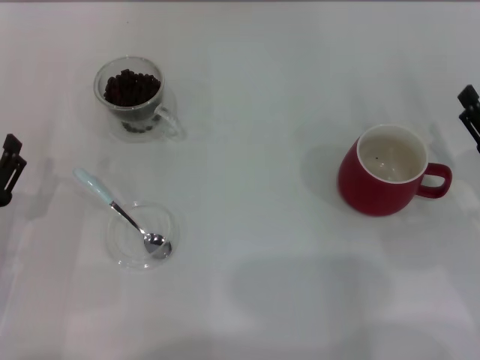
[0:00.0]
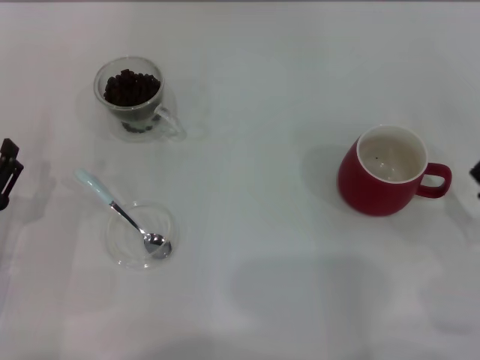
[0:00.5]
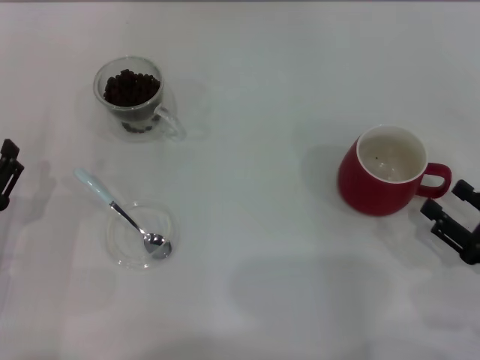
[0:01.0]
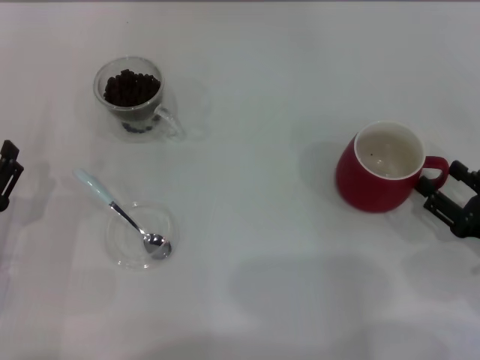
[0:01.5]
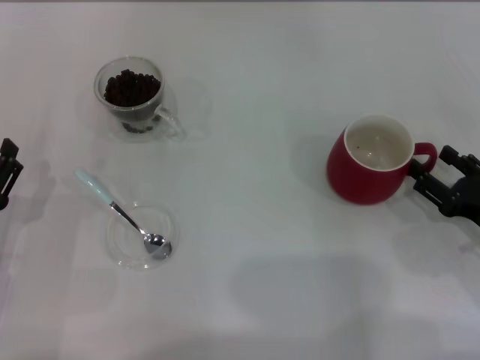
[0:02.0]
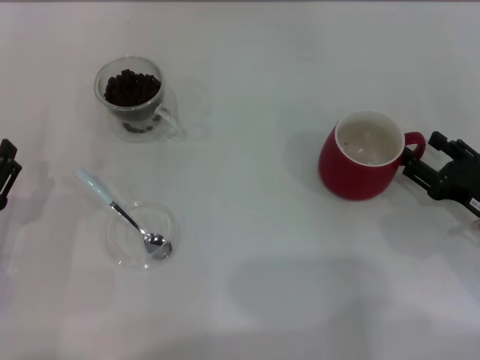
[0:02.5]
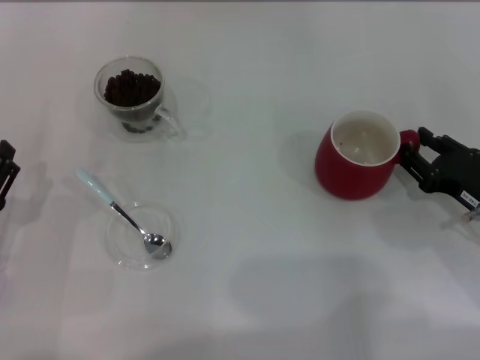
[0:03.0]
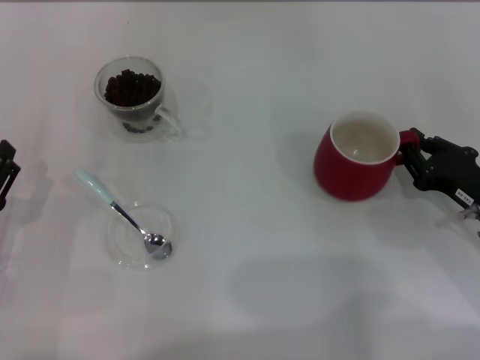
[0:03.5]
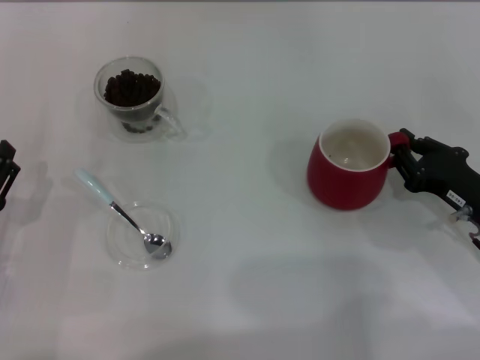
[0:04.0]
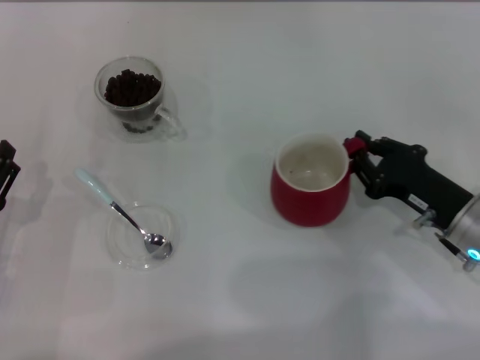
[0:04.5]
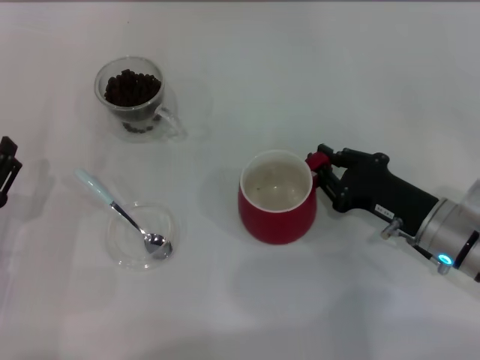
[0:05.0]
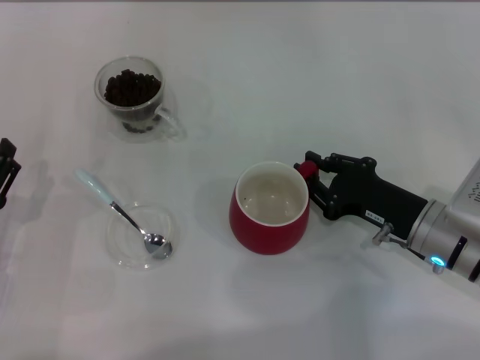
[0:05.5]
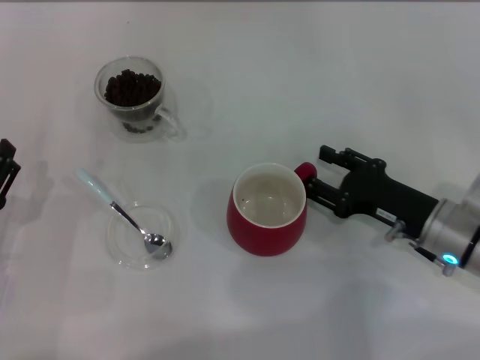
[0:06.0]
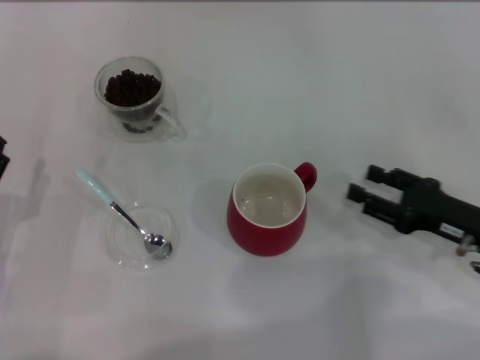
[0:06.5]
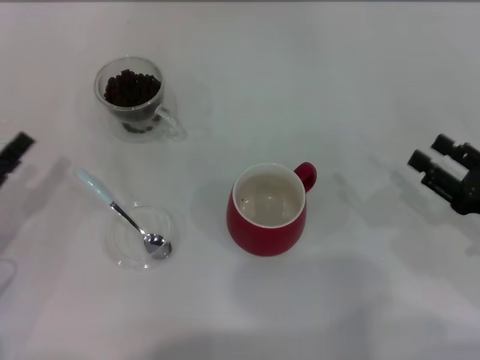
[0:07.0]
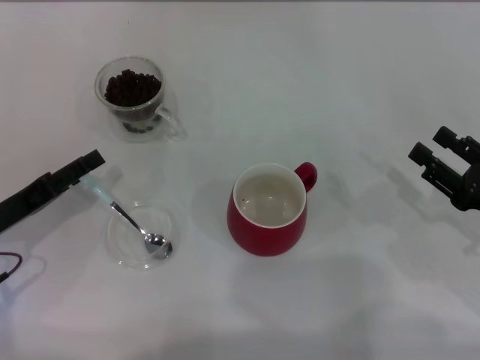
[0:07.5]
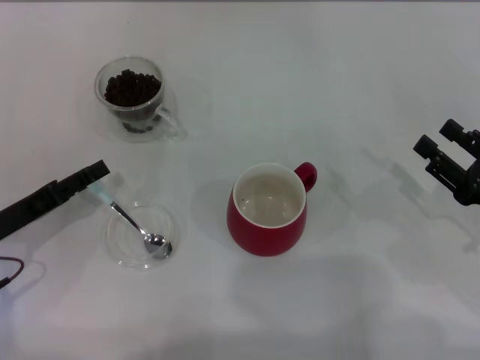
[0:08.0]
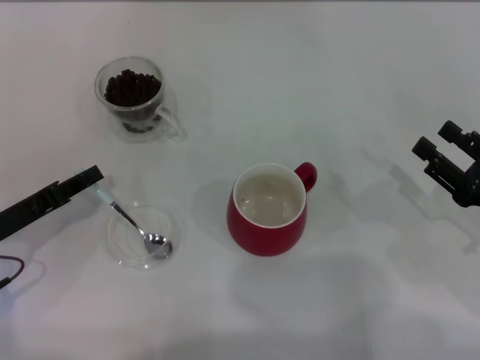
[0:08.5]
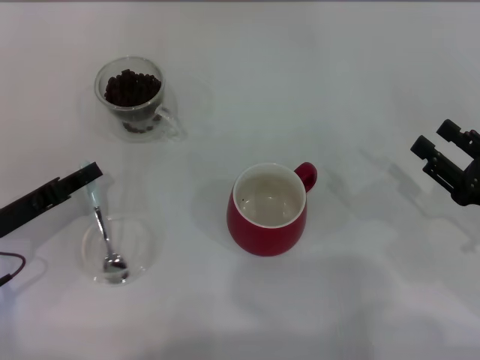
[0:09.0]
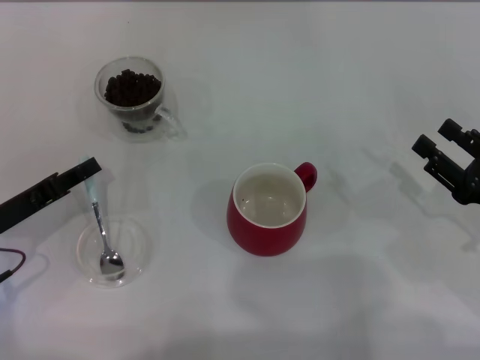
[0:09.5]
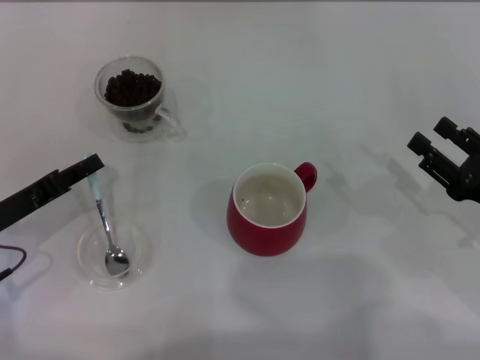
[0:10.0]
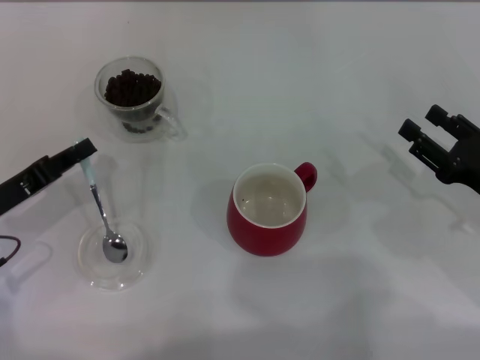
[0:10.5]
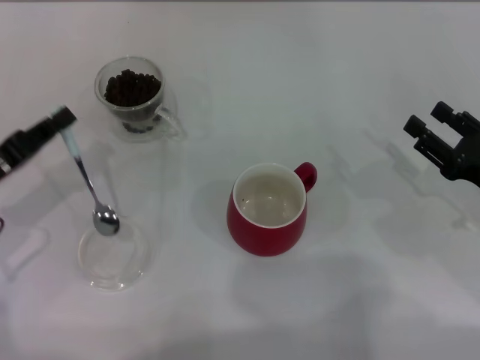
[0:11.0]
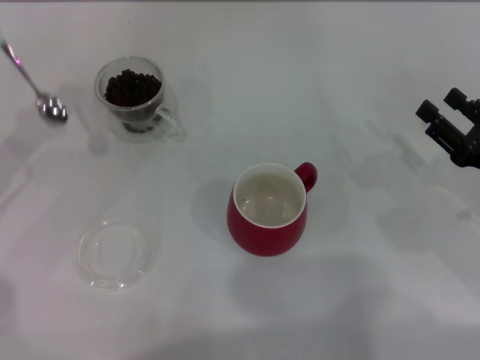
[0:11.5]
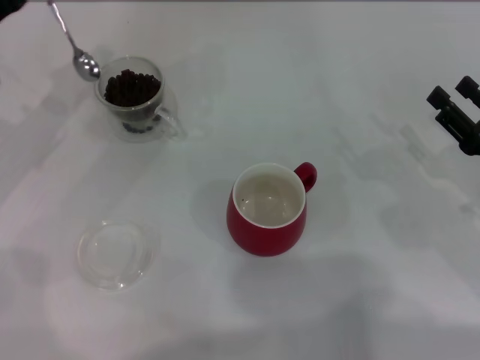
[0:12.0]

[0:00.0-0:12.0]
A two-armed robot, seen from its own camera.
Task of the whole recording: Use a blue spoon to take out the coffee beans from the glass and pour them into the red cup.
Step, 0:06.5 to 0:11.0: Pick up the spoon with the right gripper.
0:02.0 to 0:04.0: The right gripper closes up.
0:04.0 to 0:06.0: The right gripper heads to the left, covering some 5 cm, and opens its fingers.
0:06.0 to 0:08.0: The right gripper shifts about 10 cm to the right and backward. The left gripper goes roughly 5 cm forward.
0:08.0 to 0:10.0: The left gripper closes its fingers.
0:10.0 to 0:12.0: The left gripper shifts approximately 15 cm forward and upward.

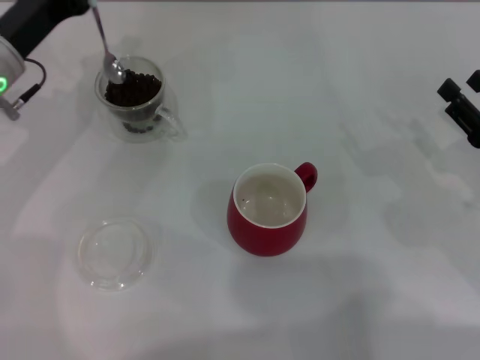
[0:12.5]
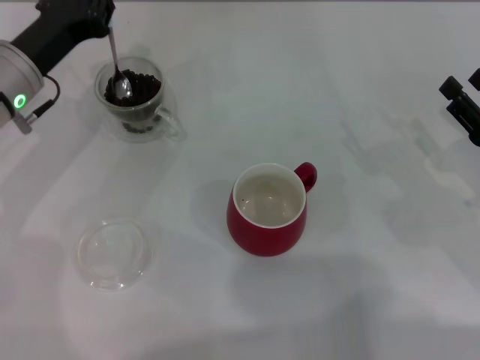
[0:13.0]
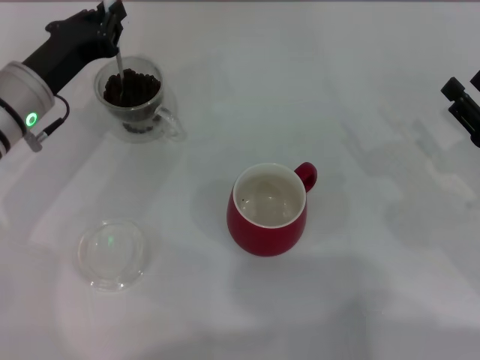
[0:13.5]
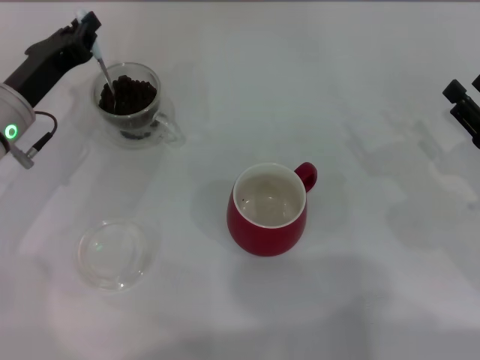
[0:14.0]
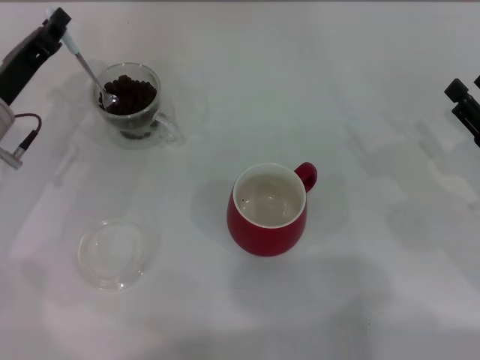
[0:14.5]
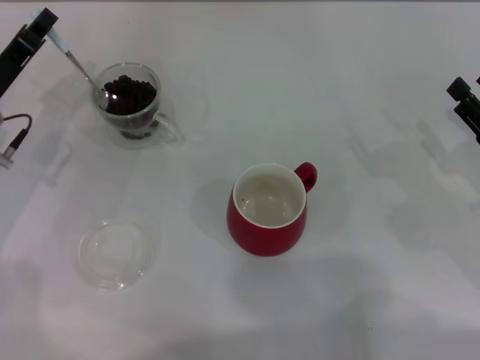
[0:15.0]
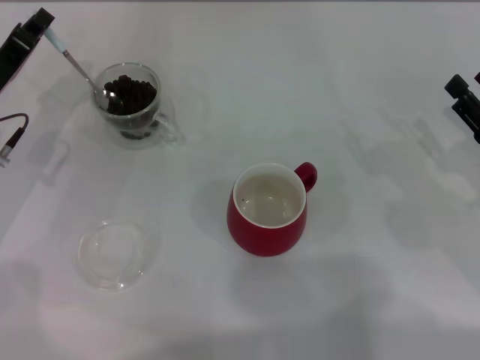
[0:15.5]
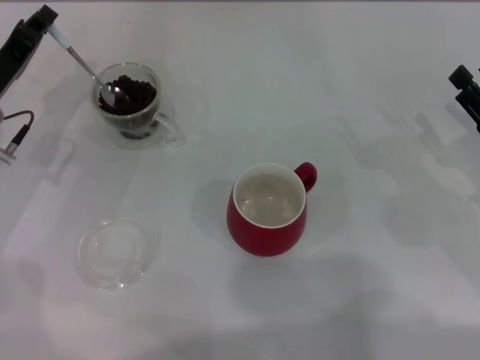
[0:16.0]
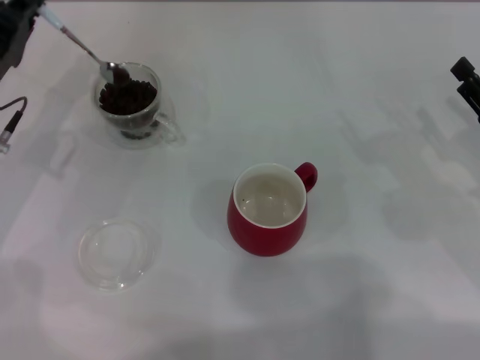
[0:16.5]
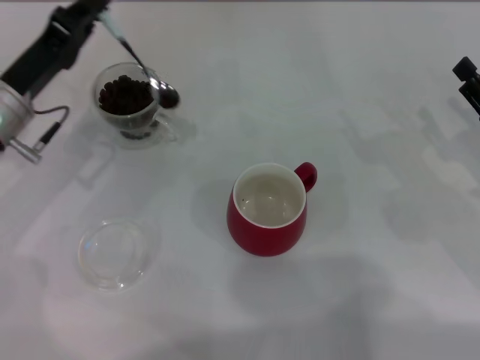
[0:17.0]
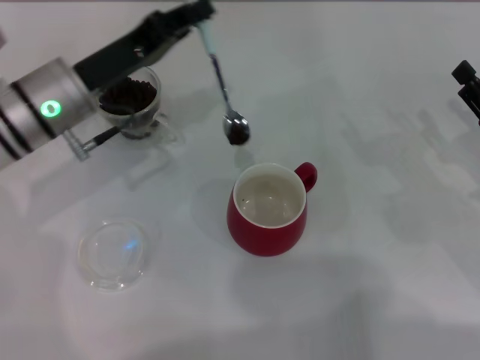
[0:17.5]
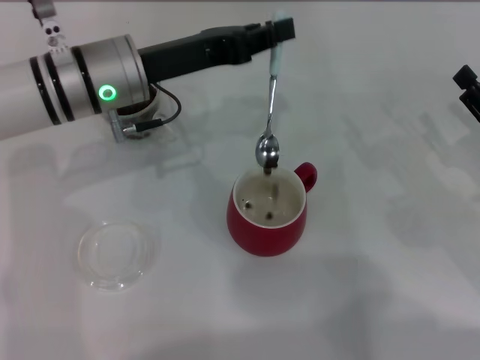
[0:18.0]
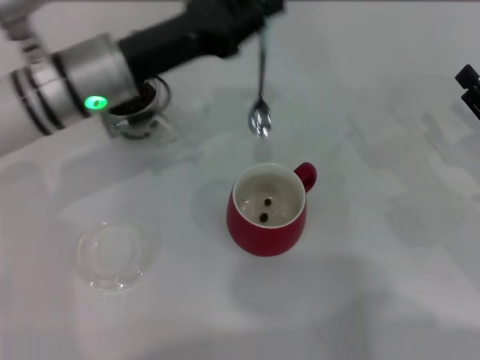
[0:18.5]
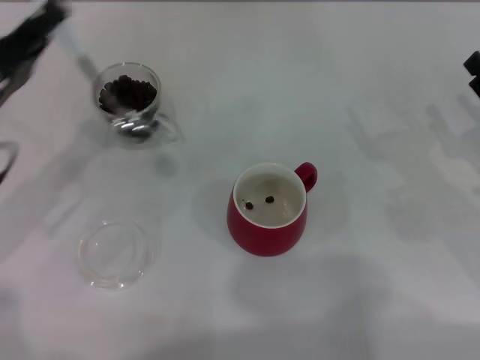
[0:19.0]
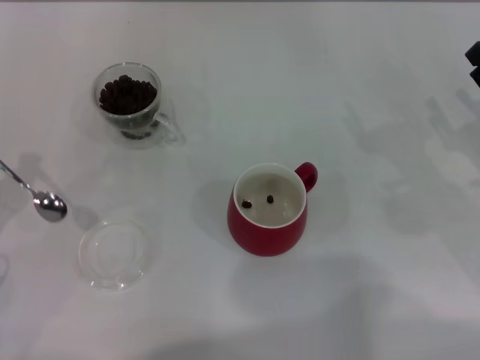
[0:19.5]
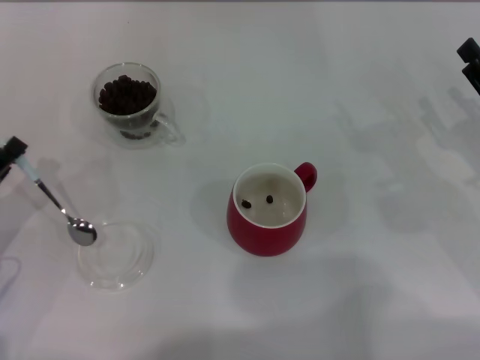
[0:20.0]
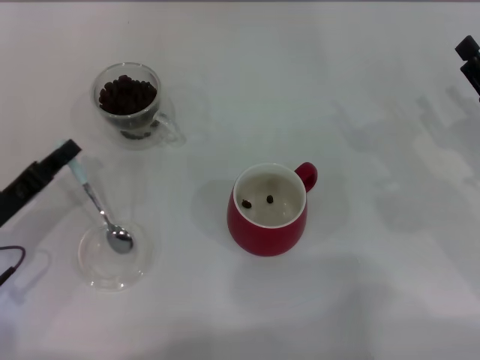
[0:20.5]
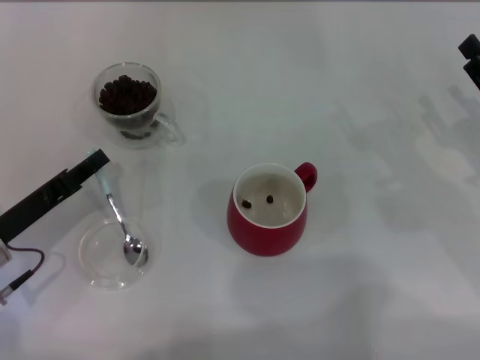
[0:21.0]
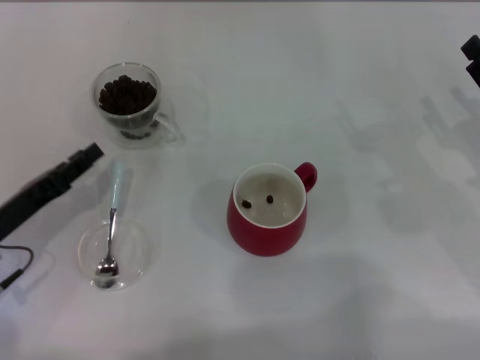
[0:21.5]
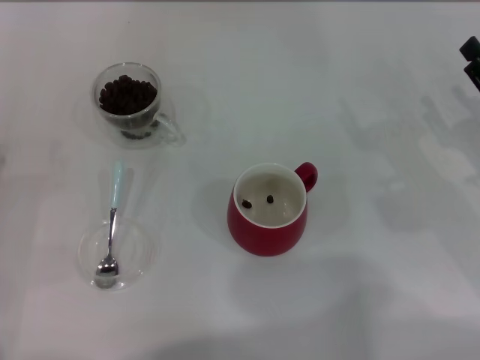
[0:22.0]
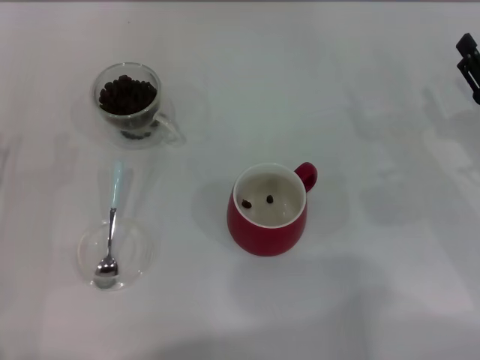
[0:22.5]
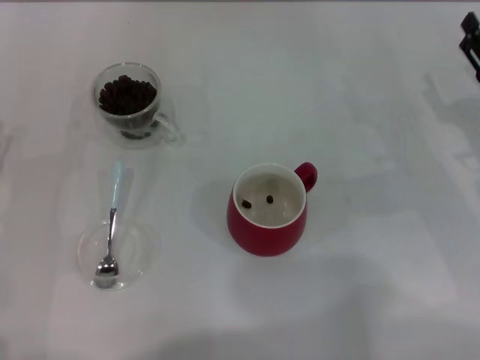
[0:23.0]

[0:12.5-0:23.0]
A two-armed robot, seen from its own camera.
Task of the whole recording: Use a blue spoon to take out the coffee beans from the glass and pour them into the red cup.
0:12.5 to 0:14.5: The left gripper ends up roughly 5 cm from where it was.
0:16.5 to 0:19.0: The left gripper heads backward, covering roughly 5 cm, and reaches approximately 15 cm to the right, then returns.
0:19.0 to 0:21.0: The left gripper shifts about 5 cm downward.
0:21.0 to 0:23.0: The left gripper opens.

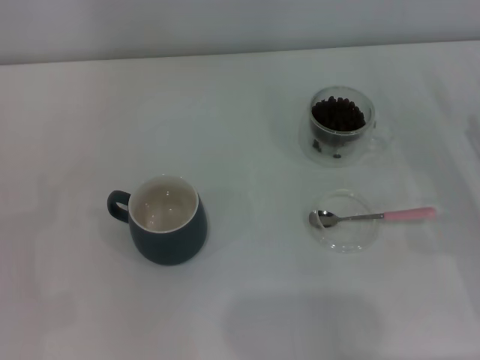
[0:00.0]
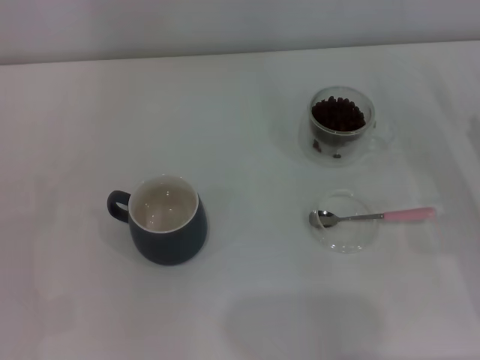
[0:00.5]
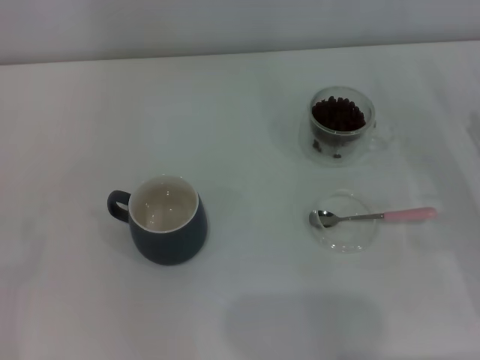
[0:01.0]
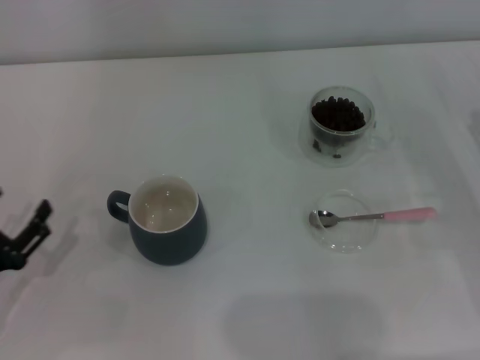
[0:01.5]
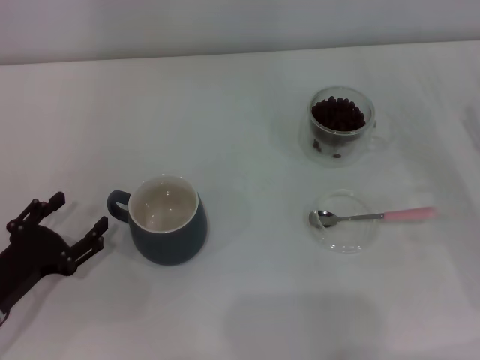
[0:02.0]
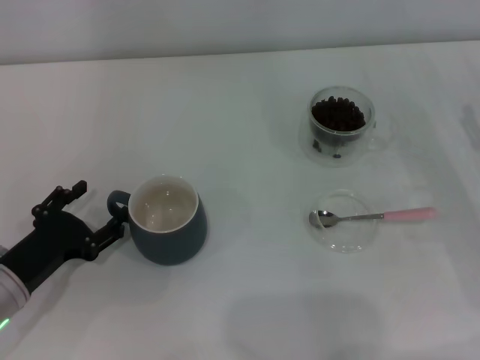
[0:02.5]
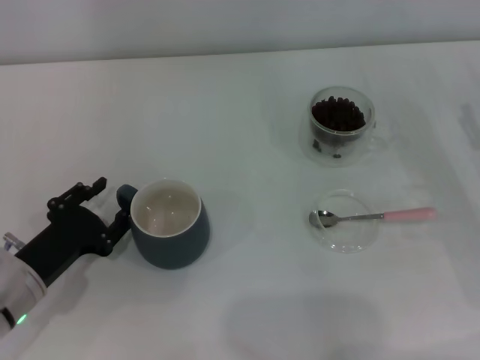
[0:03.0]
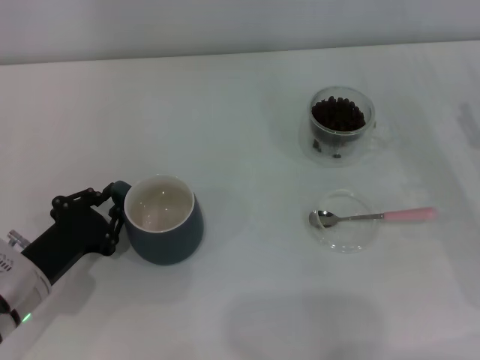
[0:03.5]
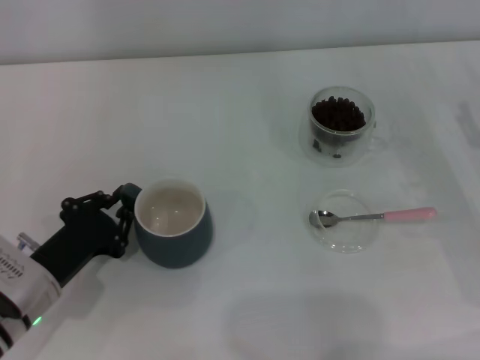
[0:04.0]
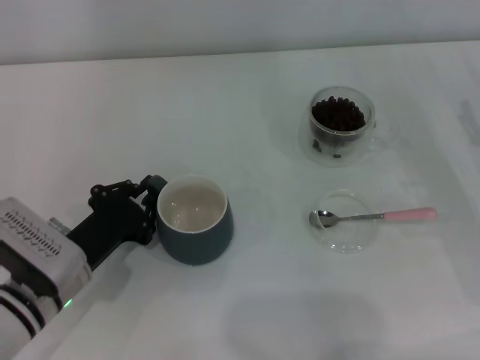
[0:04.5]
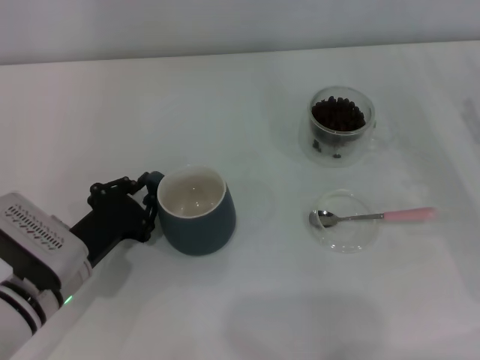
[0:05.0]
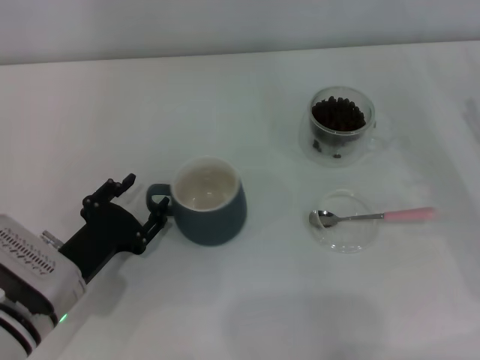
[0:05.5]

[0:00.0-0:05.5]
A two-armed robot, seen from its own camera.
Task of the whole recording: Use a pink spoon to take out the coffee beans from the glass and pour them into the gray cup.
0:00.0 to 0:02.0: The left gripper reaches roughly 5 cm backward, then returns.
0:02.0 to 0:03.5: The left gripper moves roughly 5 cm, and closes.
0:03.5 to 0:05.5: The grippers stay close to where they were, moving slightly.
